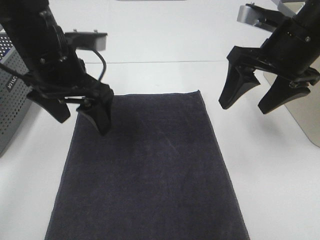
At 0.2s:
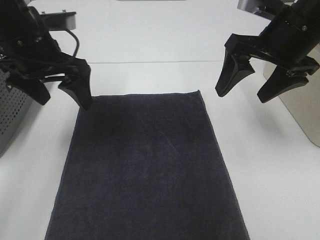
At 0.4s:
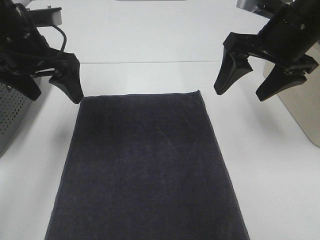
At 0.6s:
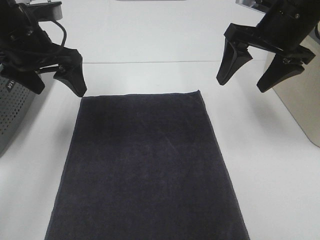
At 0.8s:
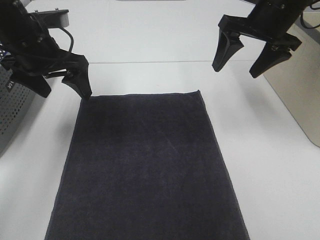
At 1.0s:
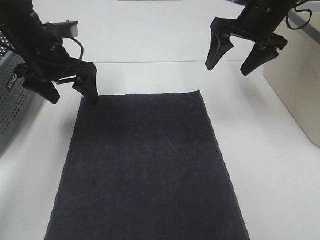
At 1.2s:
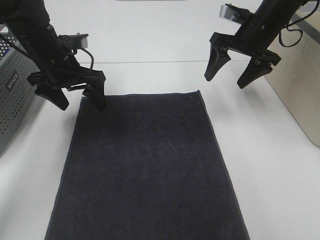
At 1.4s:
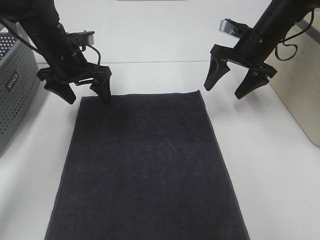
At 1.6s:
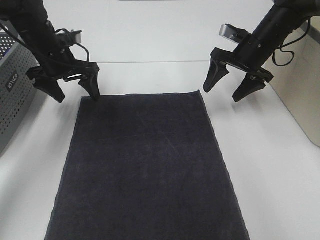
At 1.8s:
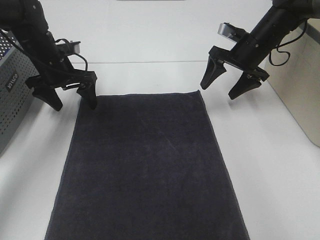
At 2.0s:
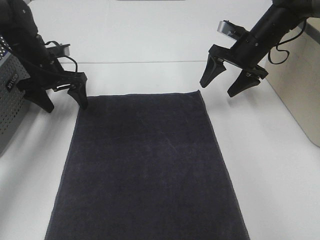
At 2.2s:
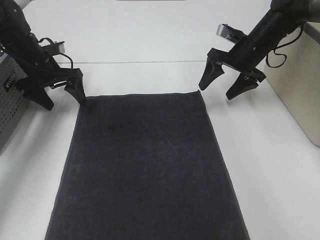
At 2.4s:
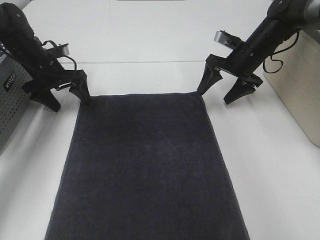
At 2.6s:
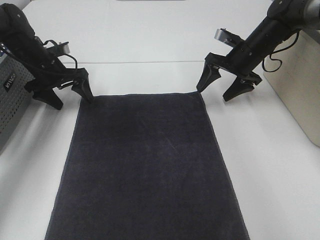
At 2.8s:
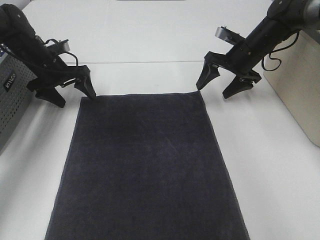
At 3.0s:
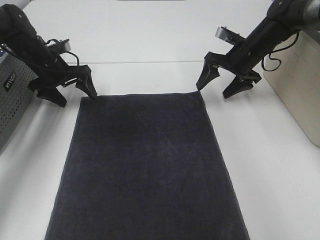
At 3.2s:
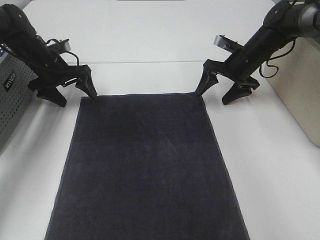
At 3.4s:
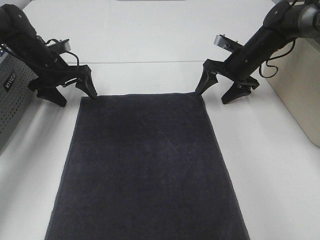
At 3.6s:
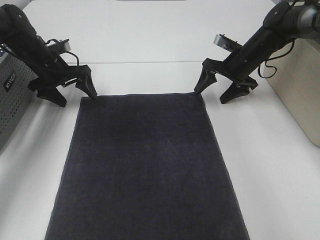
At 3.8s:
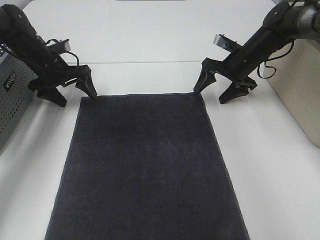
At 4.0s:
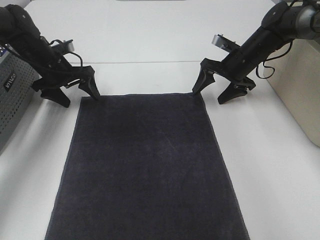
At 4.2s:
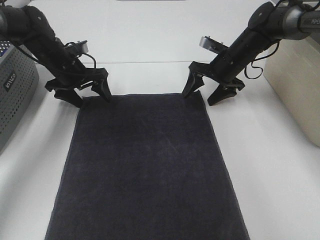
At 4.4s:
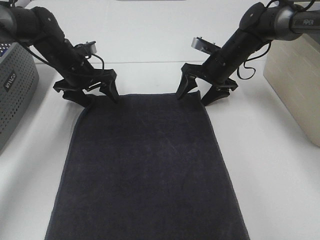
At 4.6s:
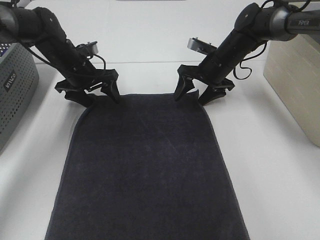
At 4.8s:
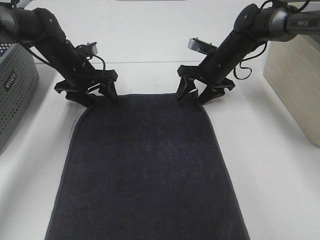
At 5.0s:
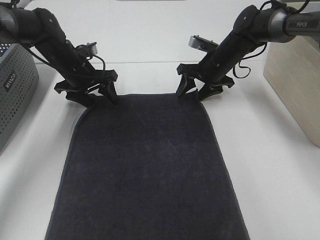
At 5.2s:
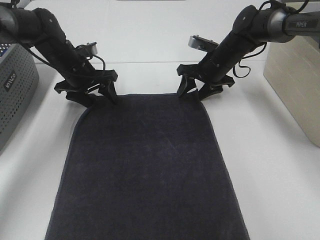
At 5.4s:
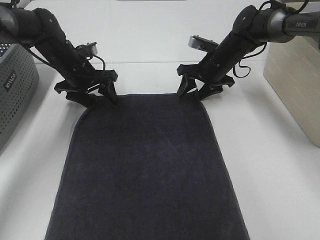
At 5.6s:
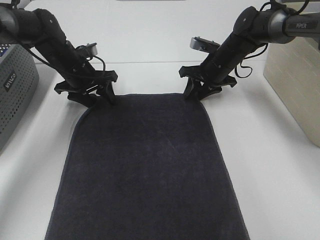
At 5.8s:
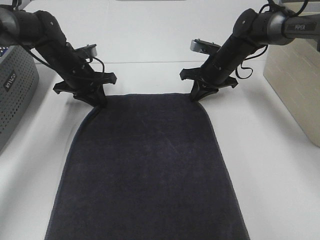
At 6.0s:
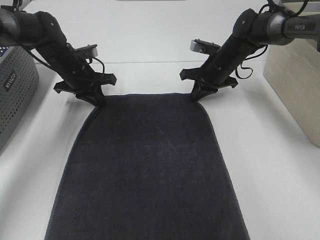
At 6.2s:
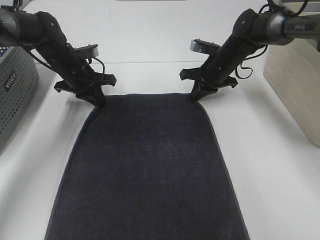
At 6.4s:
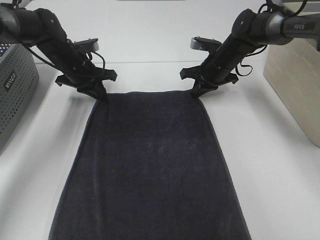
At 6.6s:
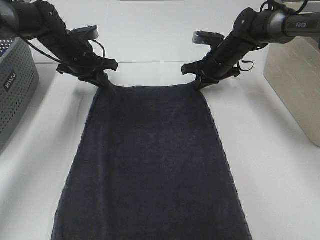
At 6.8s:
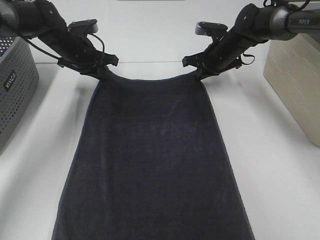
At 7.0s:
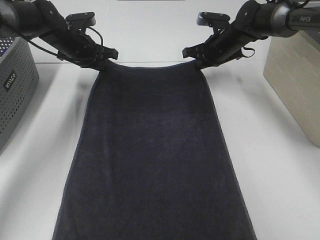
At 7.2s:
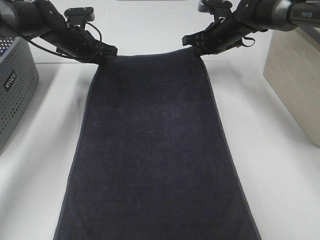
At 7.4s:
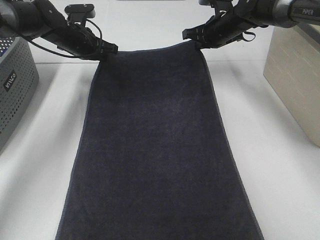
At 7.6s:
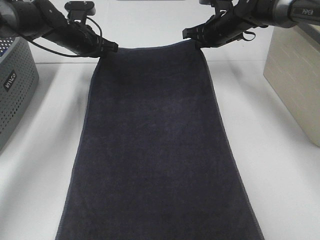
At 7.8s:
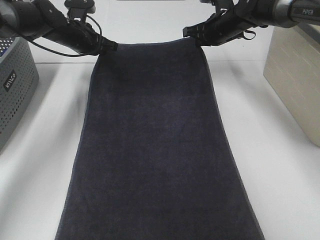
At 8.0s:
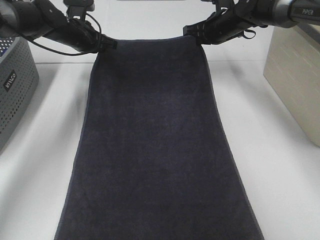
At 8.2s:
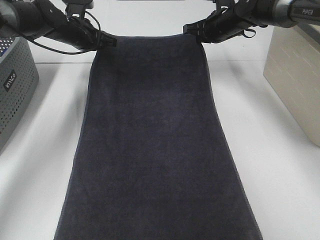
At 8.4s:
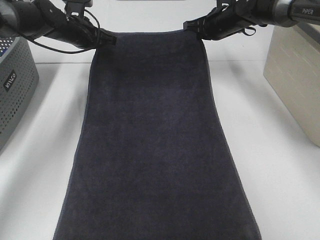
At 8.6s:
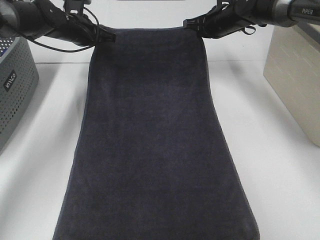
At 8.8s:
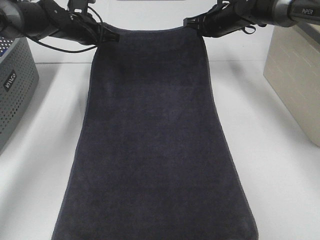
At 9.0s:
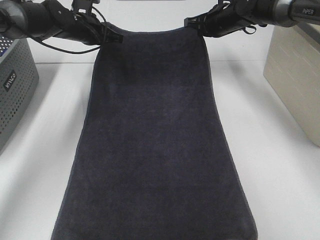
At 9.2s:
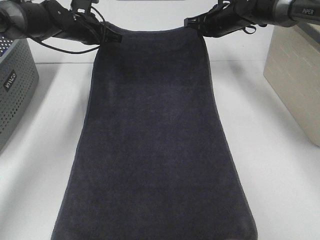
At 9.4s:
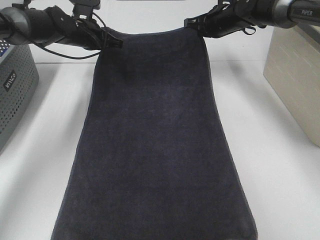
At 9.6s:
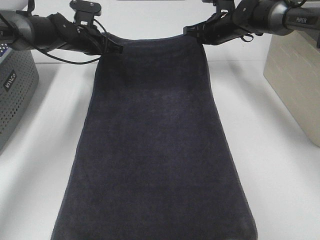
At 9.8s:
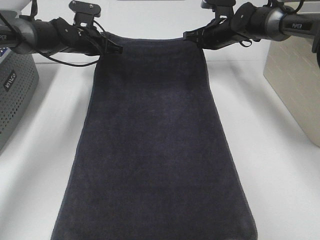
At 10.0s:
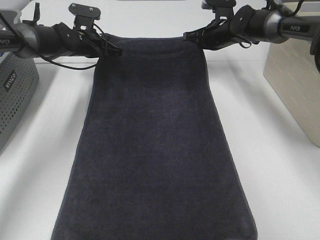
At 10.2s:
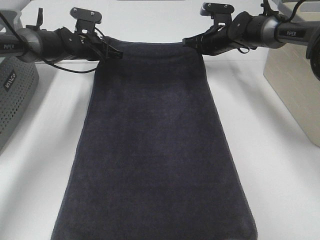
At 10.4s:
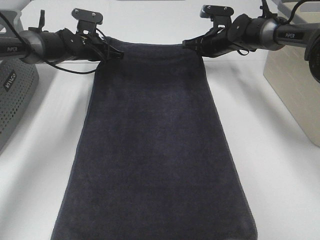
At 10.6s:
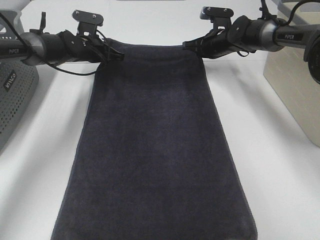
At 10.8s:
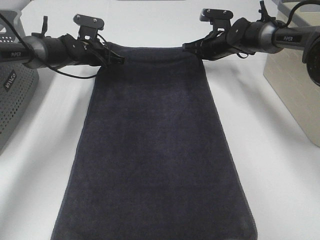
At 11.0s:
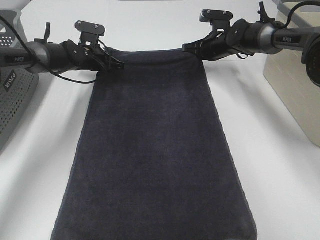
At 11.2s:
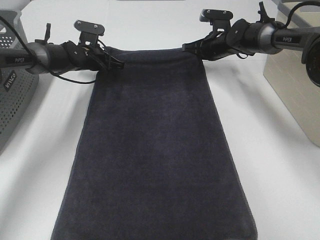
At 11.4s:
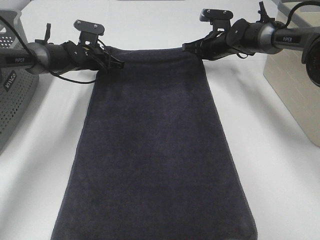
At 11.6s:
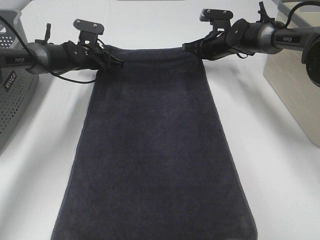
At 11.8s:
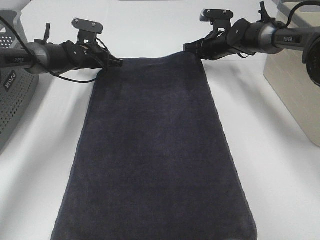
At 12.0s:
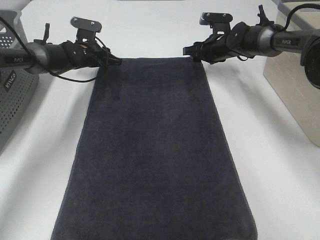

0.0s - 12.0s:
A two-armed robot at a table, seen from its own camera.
Task of the whole recording: Remove the towel and place it.
Step, 0.0s - 4.2s: Left hand:adjust the gray towel.
Step, 0.0s - 4.2s: Right hand:adjust the gray towel.
0.0s - 1.6s: The left gripper goes roughly 20 cm forward, downward and to the left. The right gripper shifts about 20 cm forward and downward.
1.6s - 3.0s: The left gripper changes place by approximately 5 cm.
3.0s - 4.4s: The right gripper is displaced to the left by roughly 5 cm, while the left gripper is displaced to the right by about 5 cm.
4.4s - 6.0s: The right gripper closes its fingers, while the left gripper closes.
6.0s - 7.6s: The right gripper is displaced upward and forward by approximately 10 cm. Meanwhile the left gripper shifts about 5 cm forward.
7.6s - 9.0s: The grippers move only a little.
9.0s - 10.4s: Both grippers move downward, some 5 cm.
10.4s - 12.0s: The right gripper opens its fingers, while the left gripper opens.

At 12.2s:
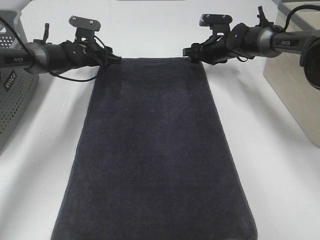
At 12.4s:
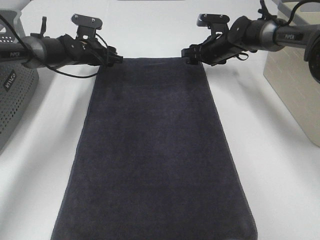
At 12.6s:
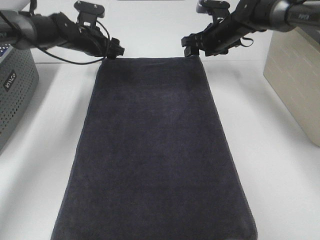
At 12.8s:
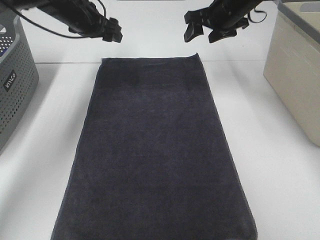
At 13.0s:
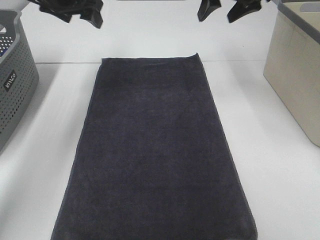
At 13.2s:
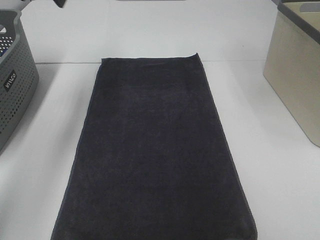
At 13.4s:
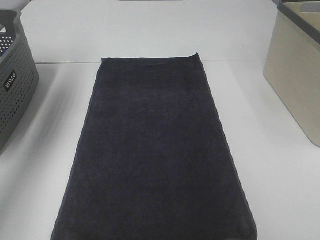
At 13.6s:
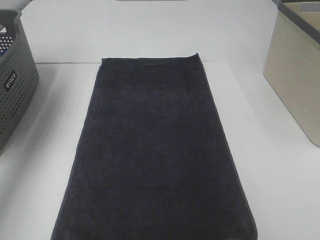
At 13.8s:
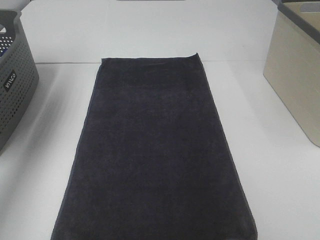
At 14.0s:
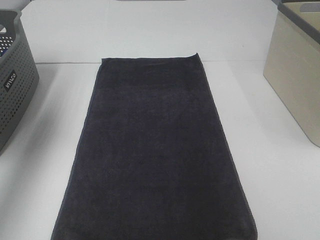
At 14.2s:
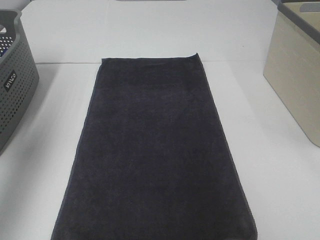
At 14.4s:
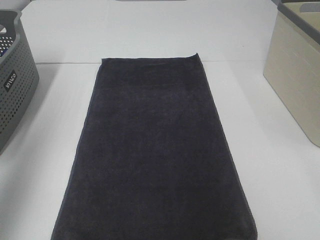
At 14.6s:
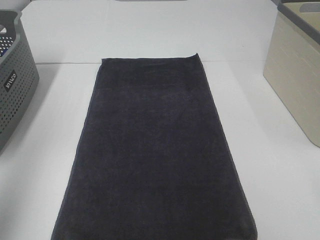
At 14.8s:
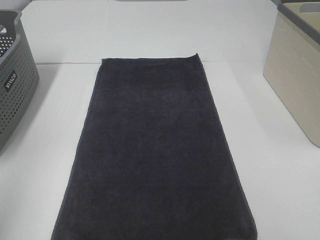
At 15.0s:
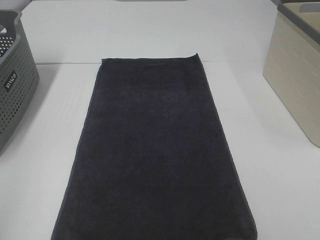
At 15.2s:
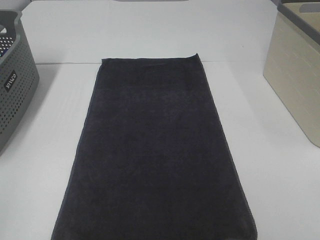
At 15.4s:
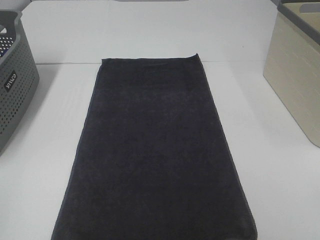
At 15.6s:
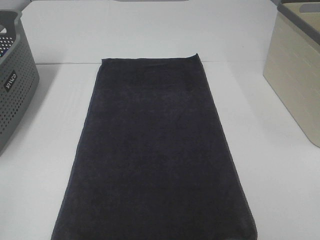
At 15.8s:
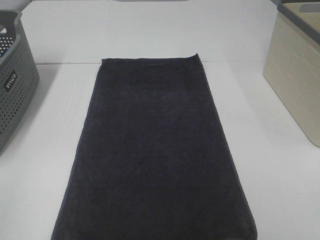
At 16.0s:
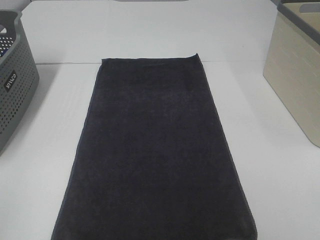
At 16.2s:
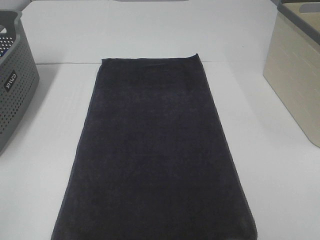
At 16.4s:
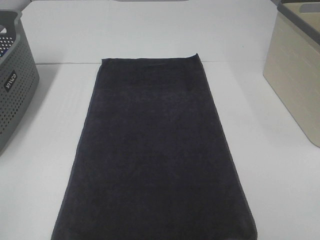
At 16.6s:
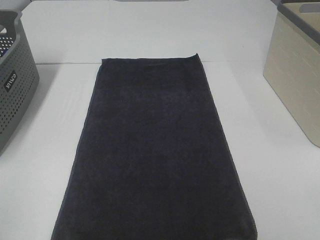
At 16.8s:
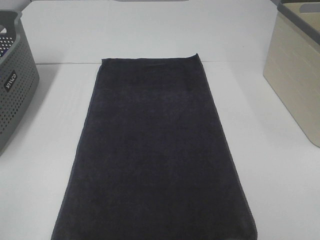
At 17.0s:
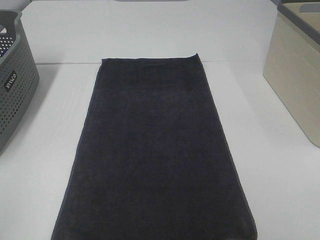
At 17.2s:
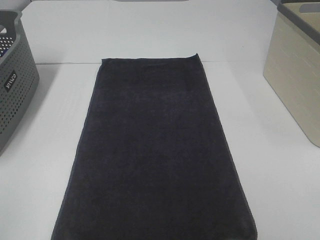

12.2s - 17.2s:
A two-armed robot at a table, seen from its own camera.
Task of the whole recording: Remove the towel and place it.
12.2s - 13.8s: The right gripper heads upward and backward, covering roughly 40 cm, while the left gripper moves upward, backward and to the left, approximately 40 cm.
13.8s - 15.6s: The left gripper shifts roughly 40 cm backward.

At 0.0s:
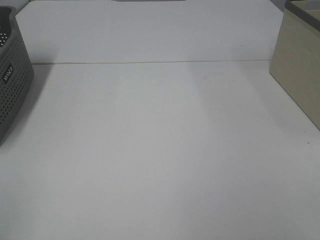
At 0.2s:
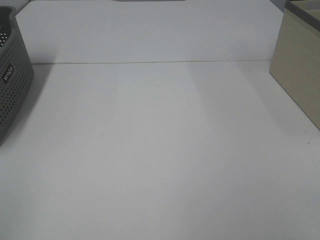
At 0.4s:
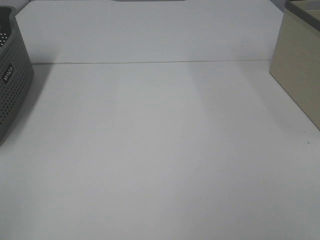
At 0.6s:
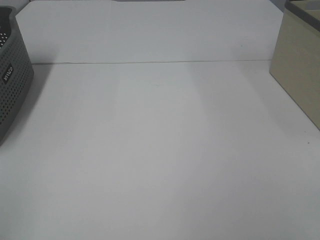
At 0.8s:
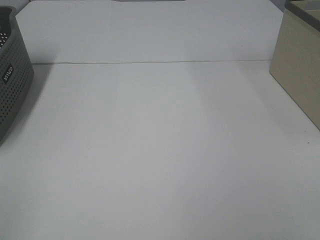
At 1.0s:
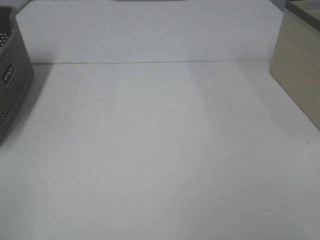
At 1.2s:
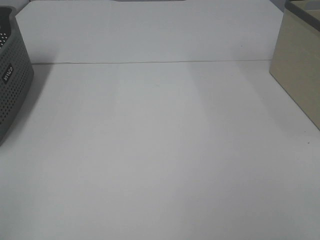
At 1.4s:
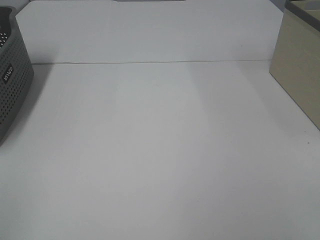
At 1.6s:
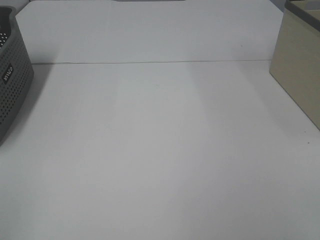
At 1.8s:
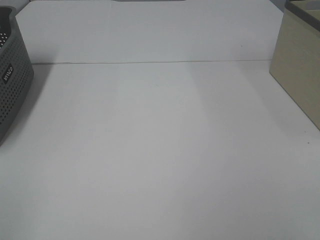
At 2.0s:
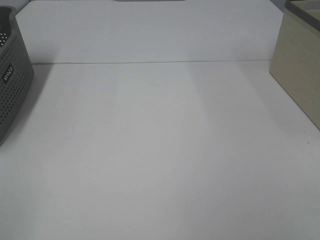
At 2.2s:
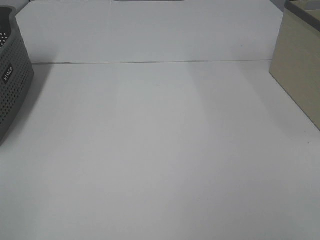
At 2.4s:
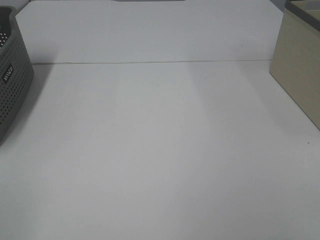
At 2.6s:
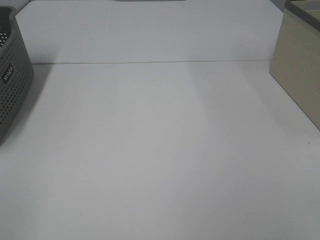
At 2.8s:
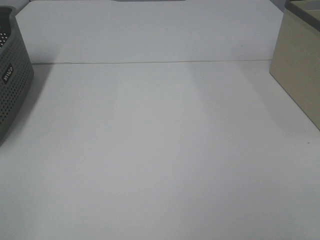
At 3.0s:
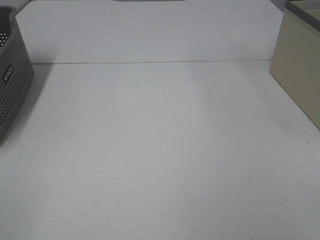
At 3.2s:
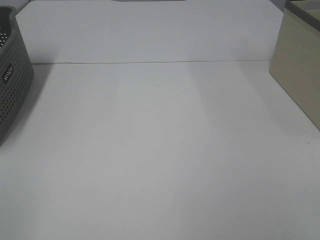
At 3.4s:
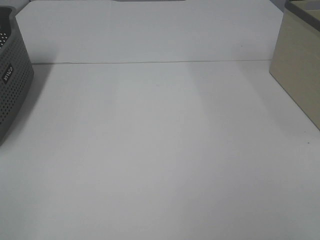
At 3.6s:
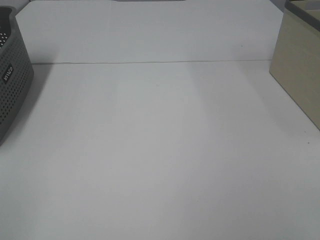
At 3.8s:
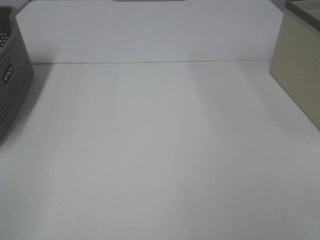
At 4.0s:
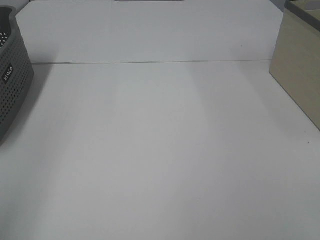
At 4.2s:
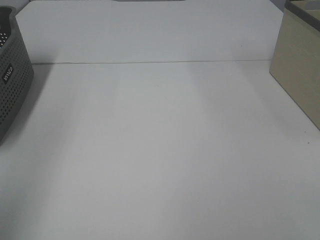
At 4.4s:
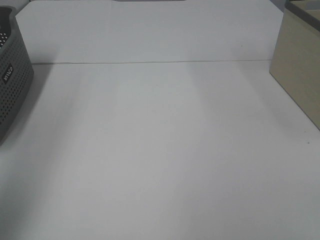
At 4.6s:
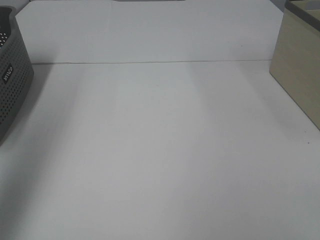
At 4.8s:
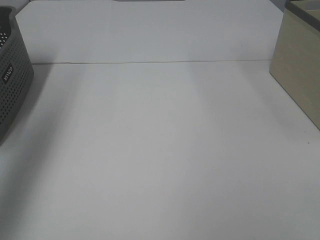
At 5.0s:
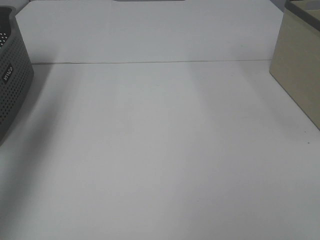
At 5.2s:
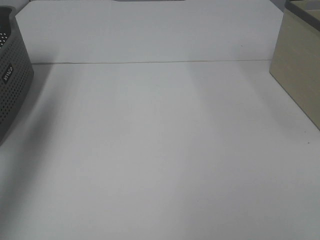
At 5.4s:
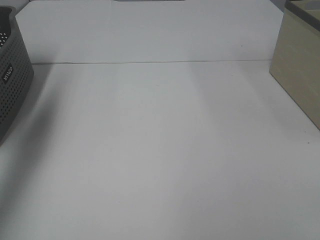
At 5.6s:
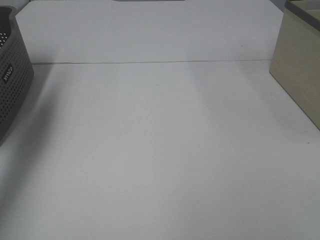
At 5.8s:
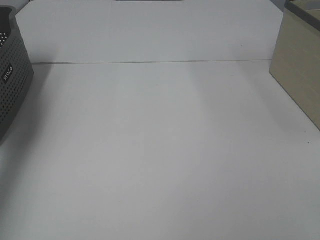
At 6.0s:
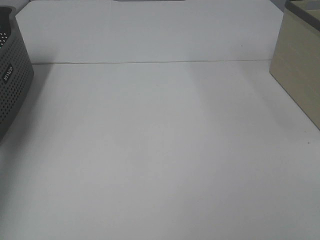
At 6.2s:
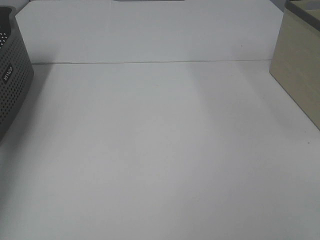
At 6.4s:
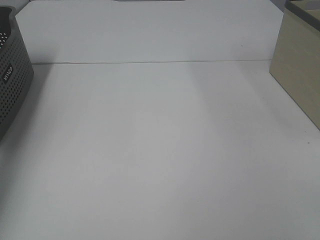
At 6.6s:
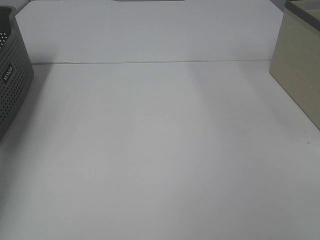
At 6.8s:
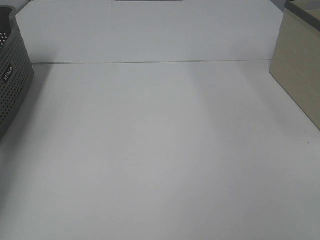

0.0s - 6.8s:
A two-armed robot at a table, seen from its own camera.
Task of the whole recording: Remove the towel and place it.
0.0s - 2.8s: Both grippers stay put.
4.0s - 5.4s: The left gripper moves forward, roughly 30 cm.
5.4s - 6.8s: The left gripper shifts approximately 20 cm downward and forward.
